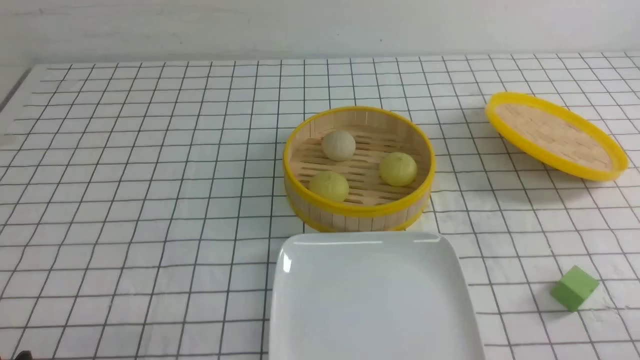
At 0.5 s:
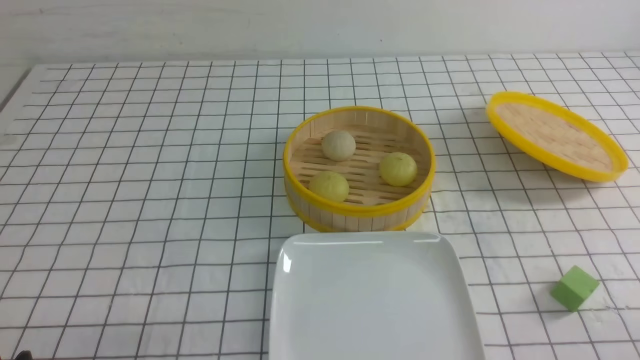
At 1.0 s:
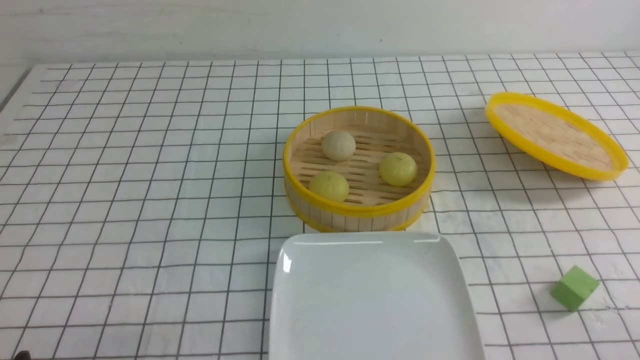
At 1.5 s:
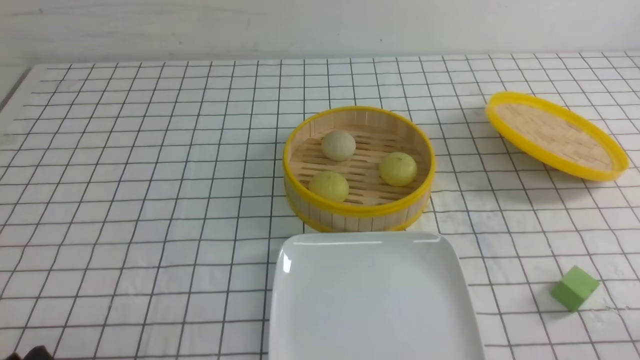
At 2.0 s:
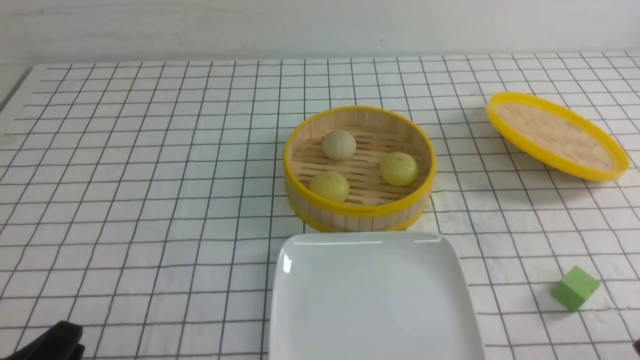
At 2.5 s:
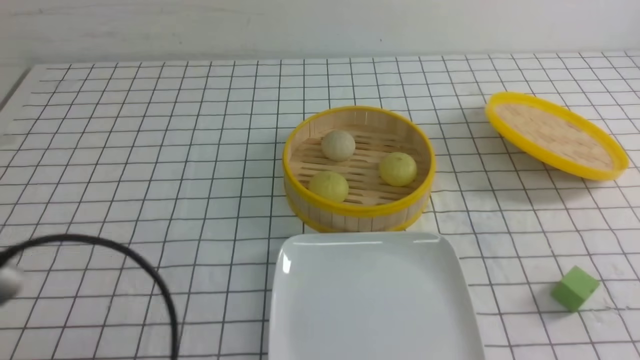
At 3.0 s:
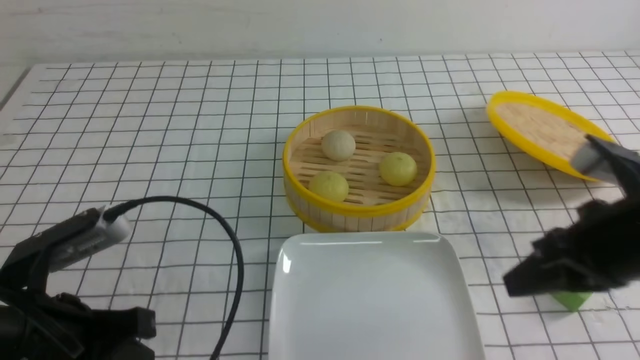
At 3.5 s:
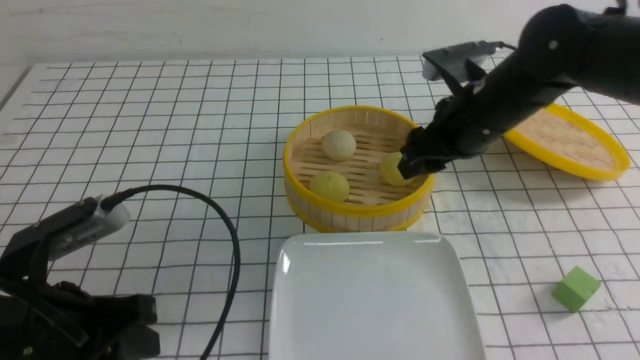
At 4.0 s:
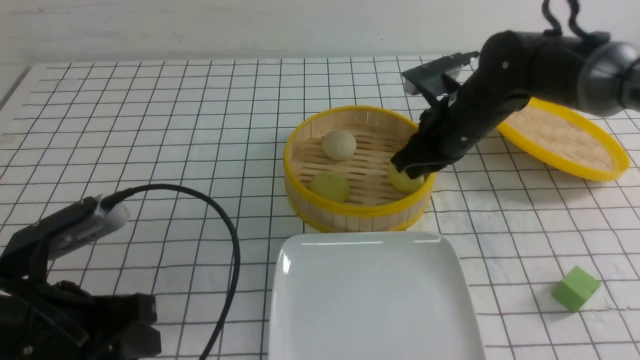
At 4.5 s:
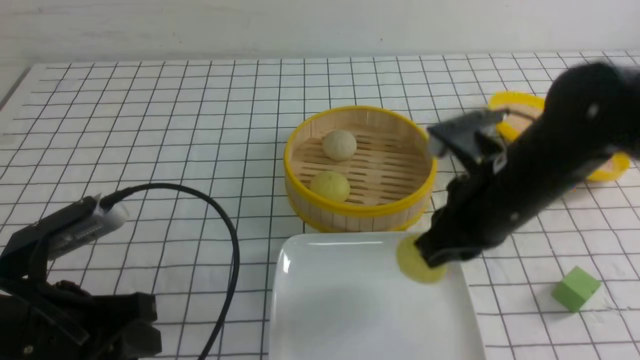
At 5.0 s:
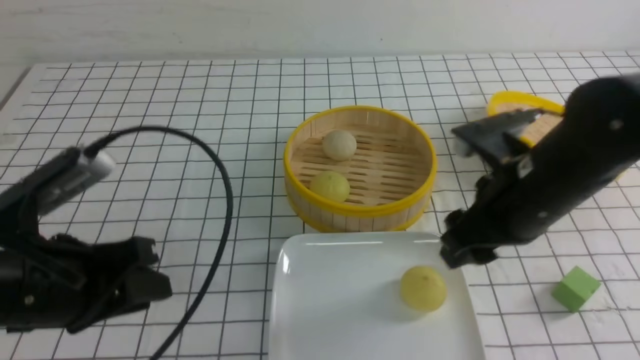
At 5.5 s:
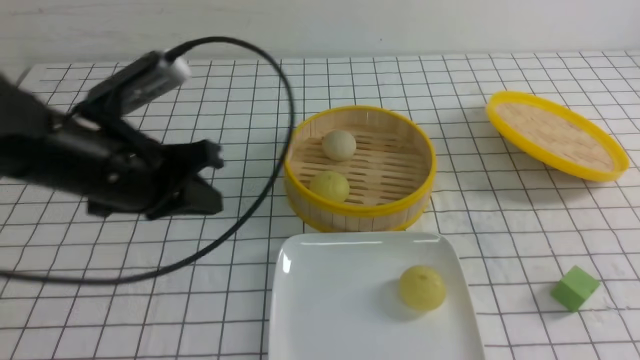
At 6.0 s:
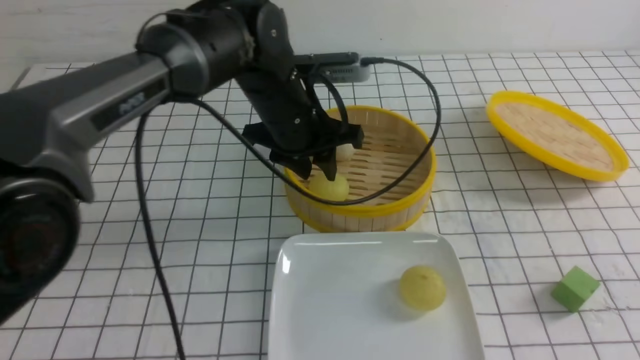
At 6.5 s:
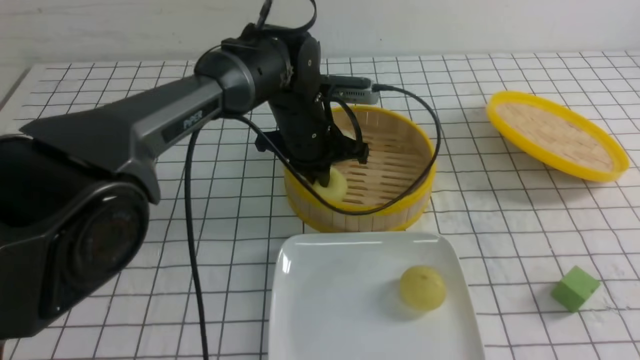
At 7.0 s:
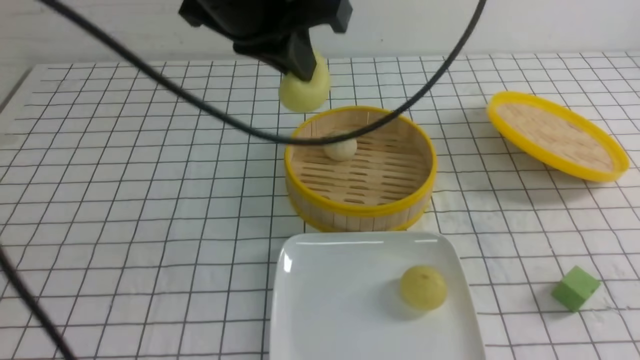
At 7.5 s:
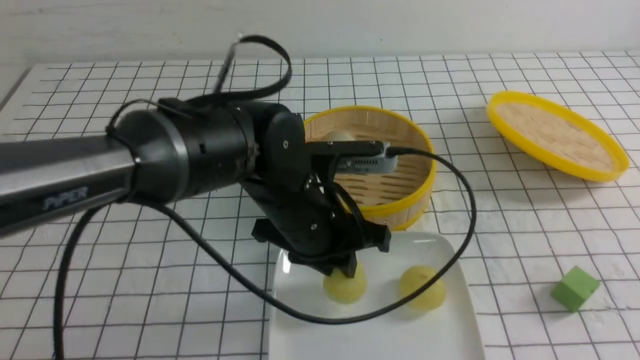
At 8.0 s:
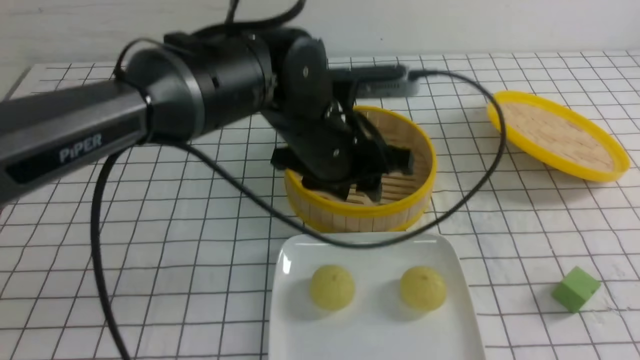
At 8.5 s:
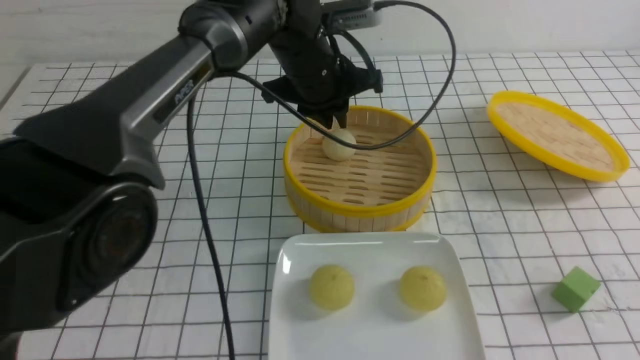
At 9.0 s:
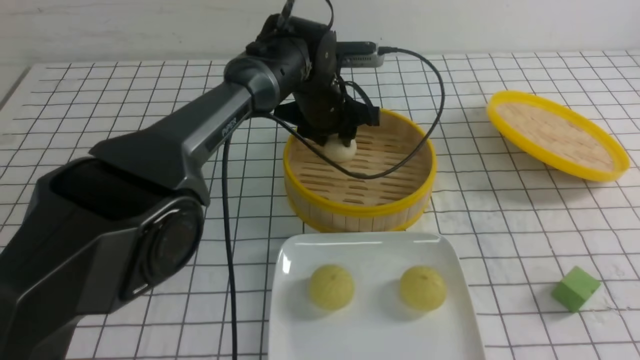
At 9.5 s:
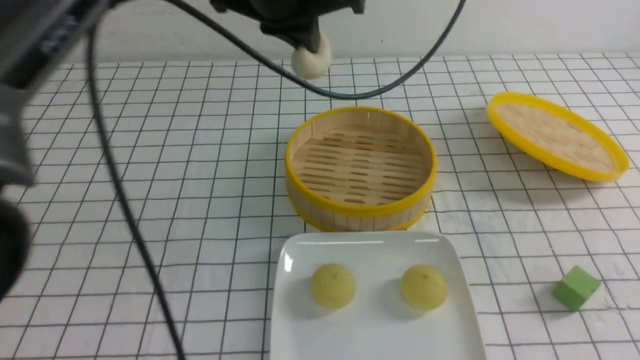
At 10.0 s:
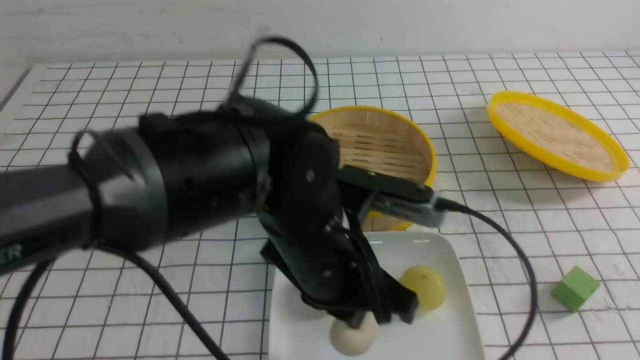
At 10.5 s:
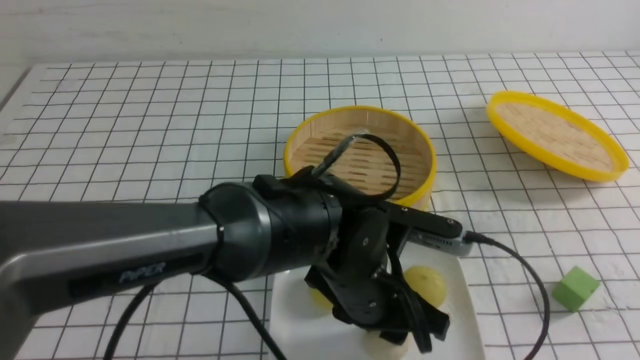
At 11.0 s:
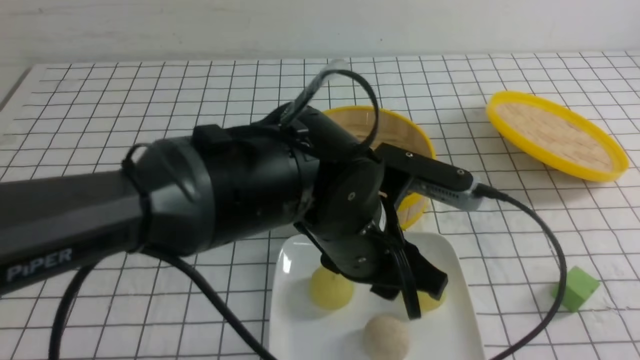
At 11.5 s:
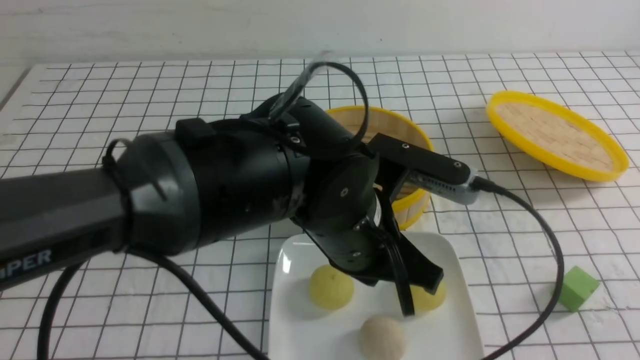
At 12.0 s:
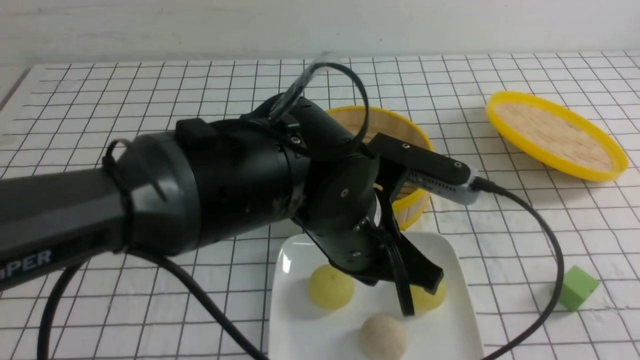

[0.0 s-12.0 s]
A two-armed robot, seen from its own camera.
Step, 0.0 to 4.0 s: use the right arm to grab the steamed stuffed bun that is closest to it.
Step, 4.5 to 5.0 s: use the right arm to put the steamed stuffed bun into the plate.
Step, 5.5 to 6.5 s: use the left arm to grab the steamed stuffed bun that is closest to it.
Step, 7.0 to 7.5 s: use the left arm to put the steamed stuffed bun into the plate.
Step, 8.0 to 9.0 s: use the left arm to grab the steamed stuffed bun that is closest to it.
Step, 9.5 to 10.5 s: use the left arm to put the steamed stuffed bun into the plate.
2.0 to 4.0 s: The right gripper heads forward and to the left, covering roughly 40 cm, and opens, then closes again. The left gripper shifts about 10 cm forward, and closes, then reopens.
4.0 to 6.0 s: The left gripper heads forward and to the right, covering about 30 cm, and closes, then reopens. Meanwhile the right gripper shifts approximately 30 cm backward and to the right, and opens, then closes once more.
6.0 to 8.0 s: The left gripper swings up and down, roughly 15 cm each way, with 2 reversals, and closes and opens again.
8.0 to 10.0 s: The left gripper goes about 10 cm backward, and closes its fingers.
10.0 to 12.0 s: The right gripper moves backward, about 10 cm, while the left gripper opens and closes again.

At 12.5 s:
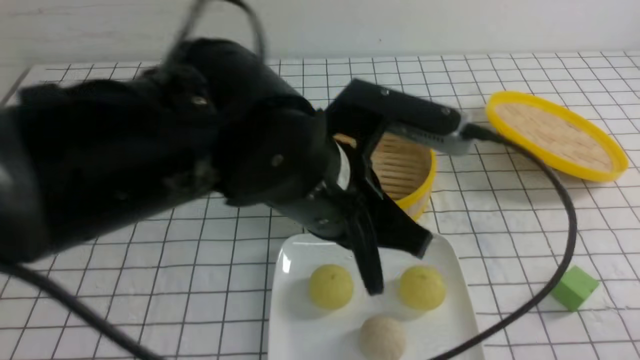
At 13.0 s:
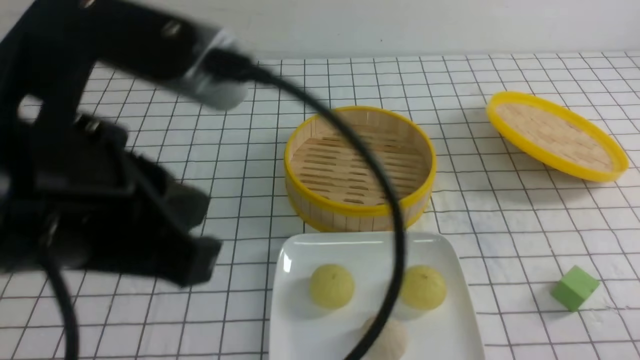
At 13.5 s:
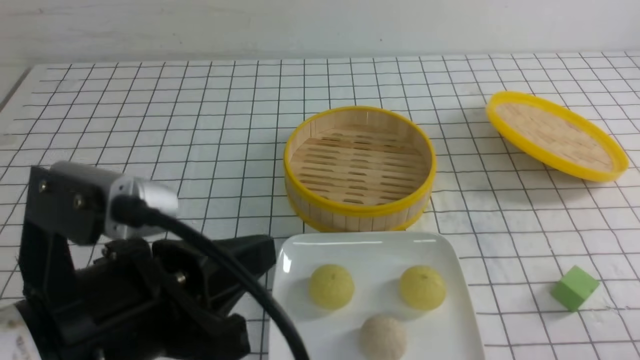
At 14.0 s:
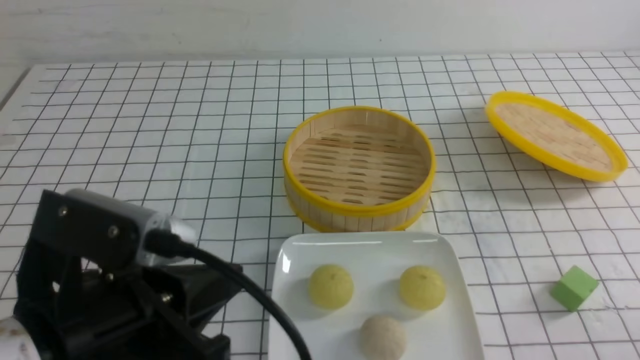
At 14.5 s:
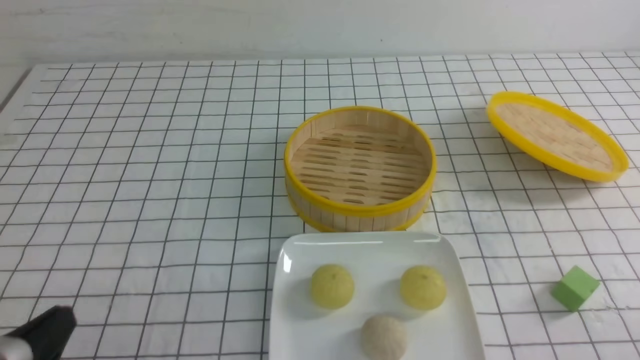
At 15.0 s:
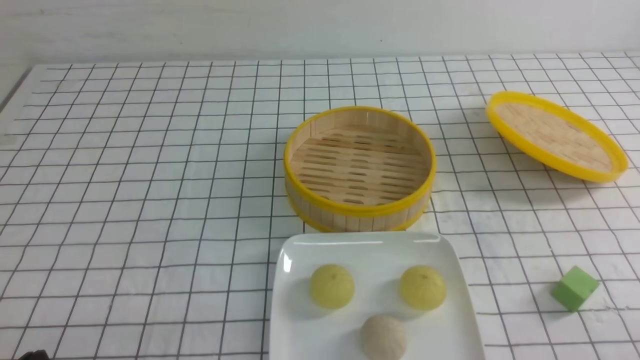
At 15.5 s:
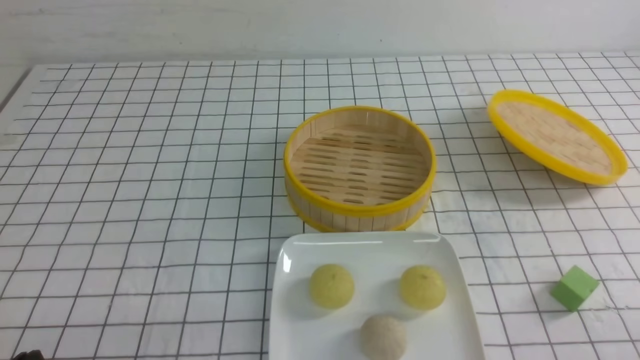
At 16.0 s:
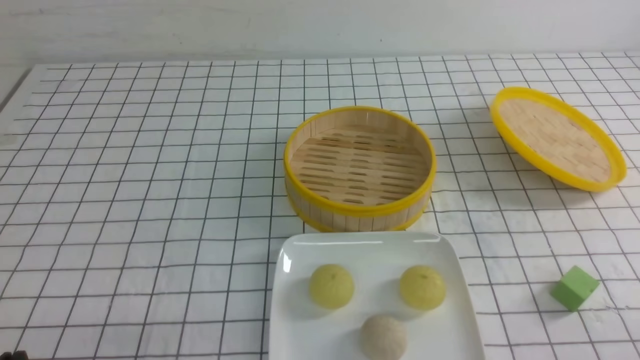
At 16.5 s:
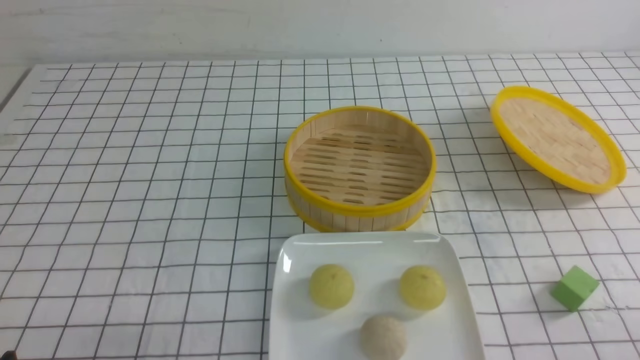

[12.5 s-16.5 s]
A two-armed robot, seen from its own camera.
12.5 to 14.5 s: The left gripper is displaced to the left, backward and downward by about 30 cm.
14.5 to 16.5 s: The left gripper changes place by some 5 cm.

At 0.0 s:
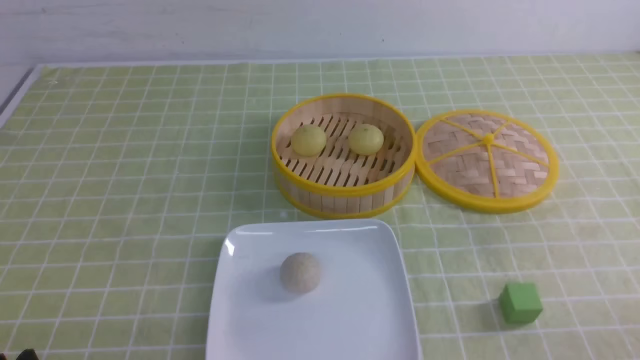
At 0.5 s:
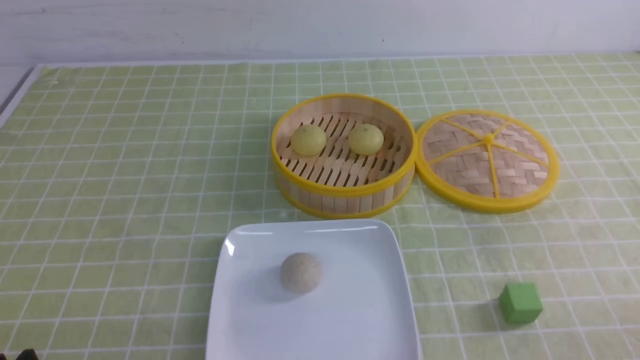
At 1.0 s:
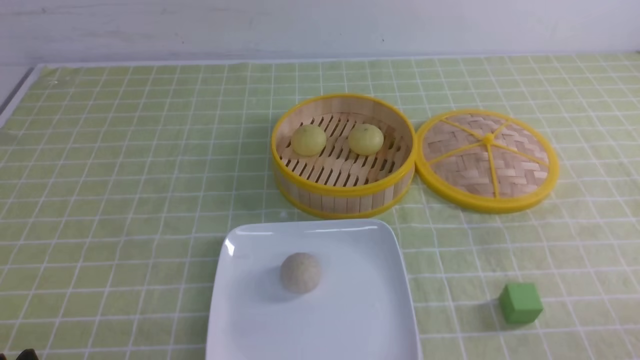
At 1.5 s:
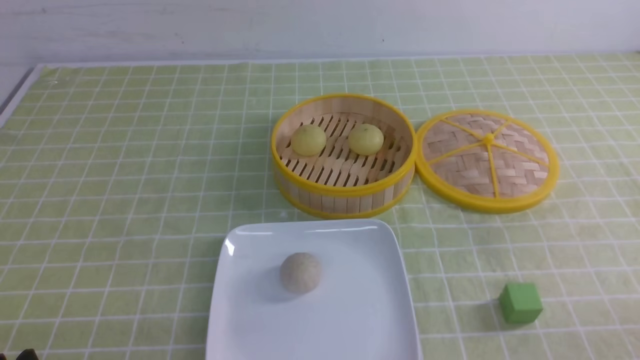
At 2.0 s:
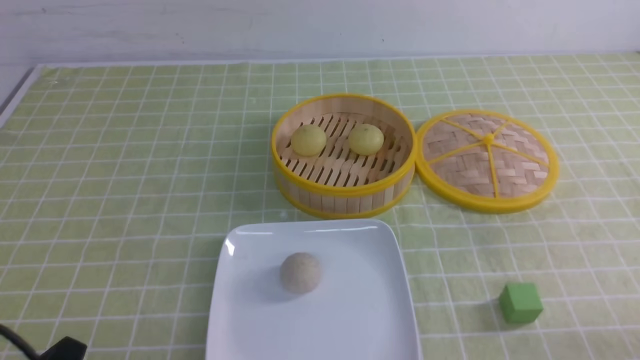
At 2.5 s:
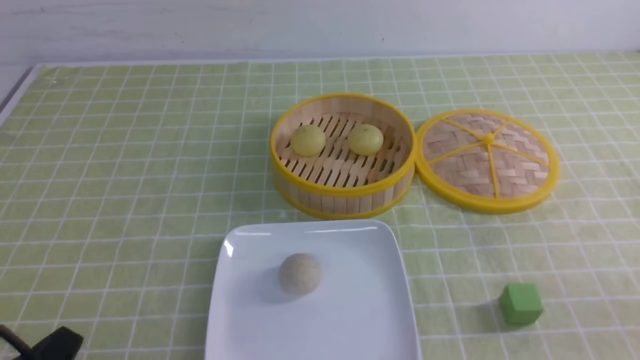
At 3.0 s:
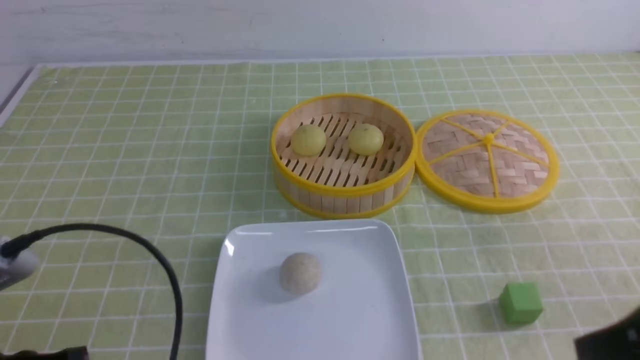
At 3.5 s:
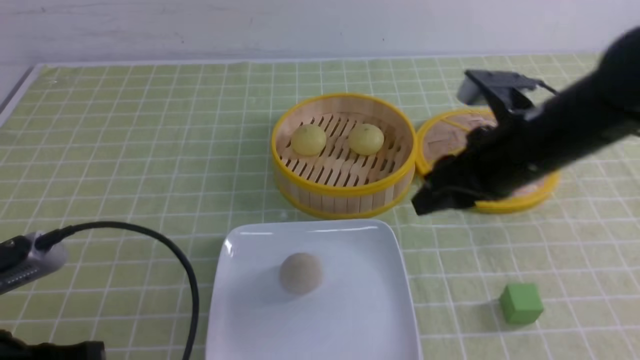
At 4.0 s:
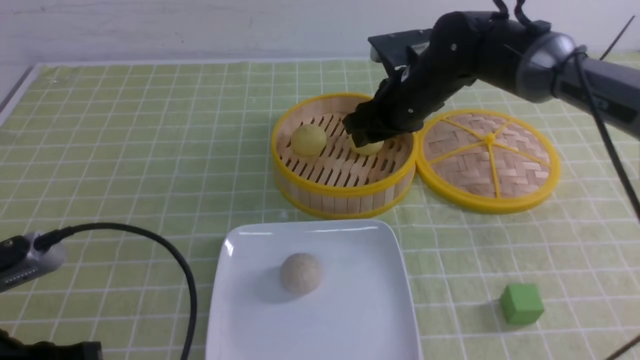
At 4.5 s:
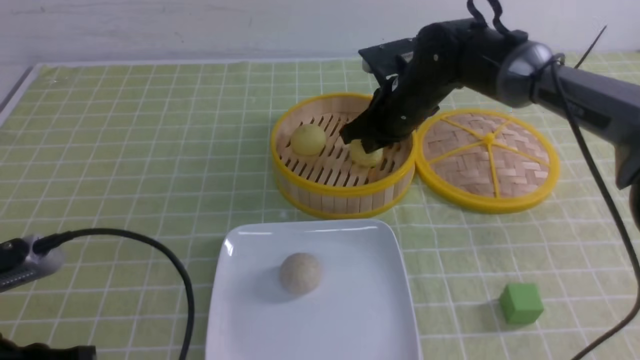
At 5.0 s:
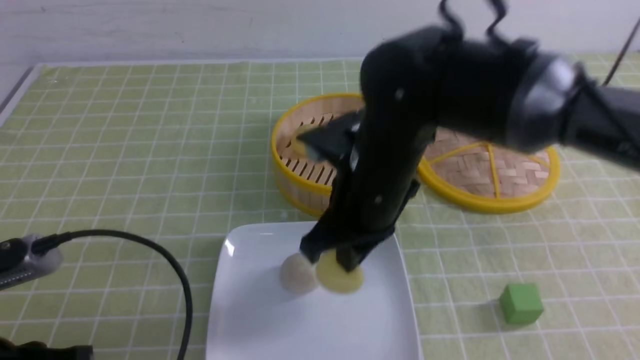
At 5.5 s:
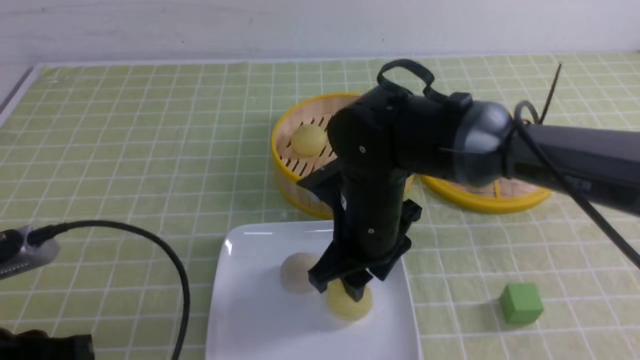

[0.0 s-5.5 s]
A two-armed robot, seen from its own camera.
Step, 0.0 to 4.0 s: use the right arm to grab the steamed stuffed bun that is closest to it.
Step, 5.0 to 5.5 s: use the right arm to put the steamed stuffed bun into the plate.
2.0 to 3.5 s: The left gripper shifts about 10 cm upward and forward, and closes up. Meanwhile the right gripper shifts roughly 30 cm forward and to the left, and closes and opens again.
3.5 to 5.5 s: The right gripper heads to the left, covering roughly 15 cm, travels forward and back again, roughly 15 cm each way, and closes and opens again.
